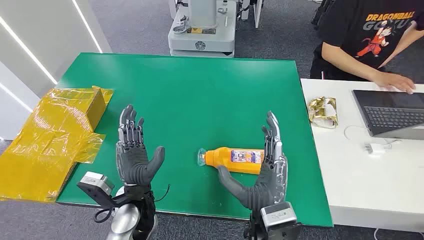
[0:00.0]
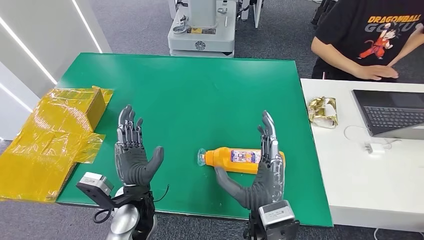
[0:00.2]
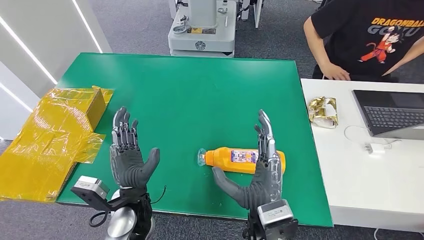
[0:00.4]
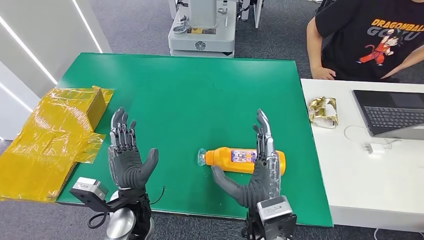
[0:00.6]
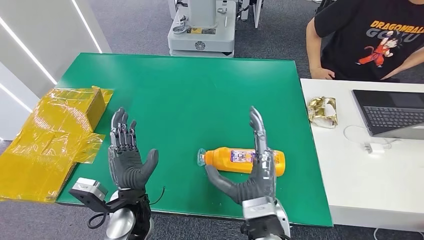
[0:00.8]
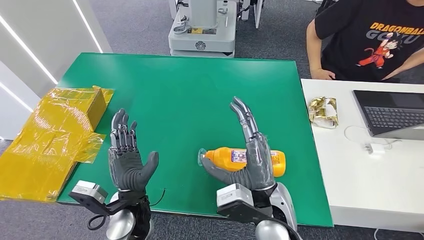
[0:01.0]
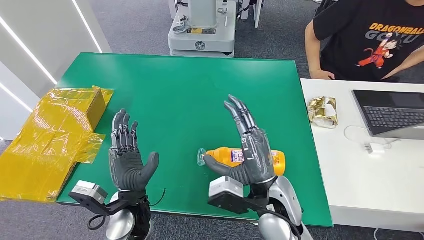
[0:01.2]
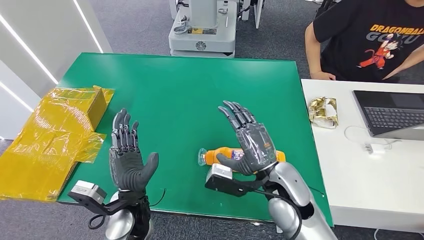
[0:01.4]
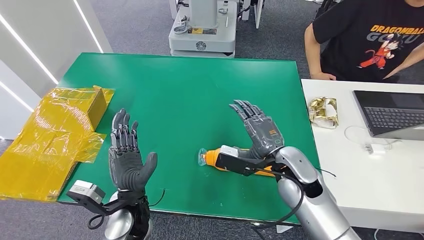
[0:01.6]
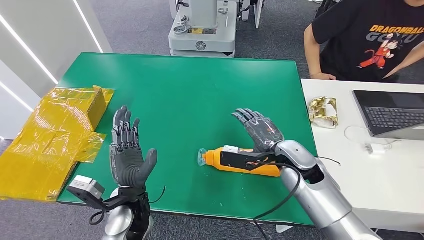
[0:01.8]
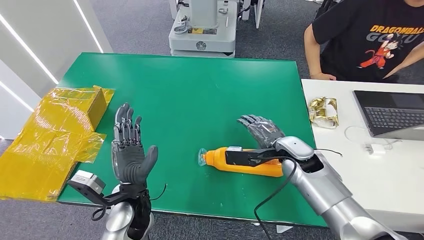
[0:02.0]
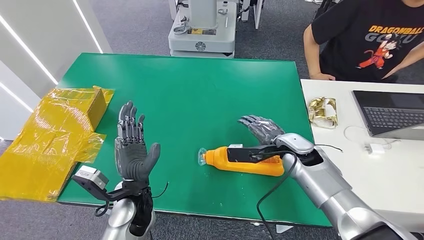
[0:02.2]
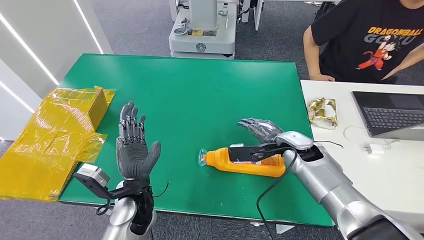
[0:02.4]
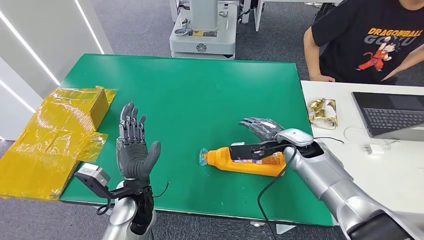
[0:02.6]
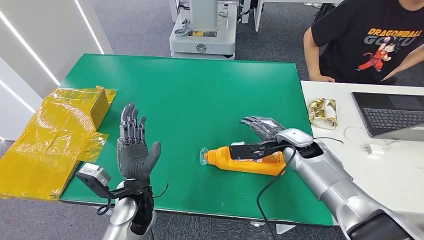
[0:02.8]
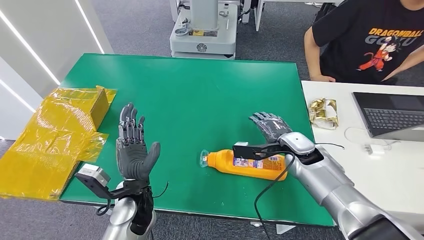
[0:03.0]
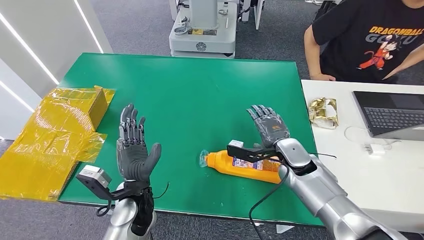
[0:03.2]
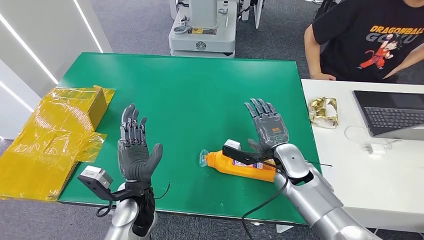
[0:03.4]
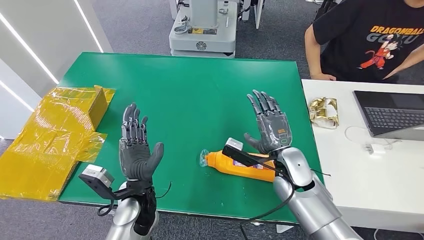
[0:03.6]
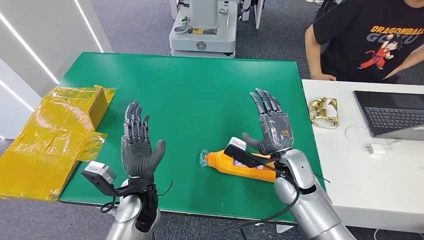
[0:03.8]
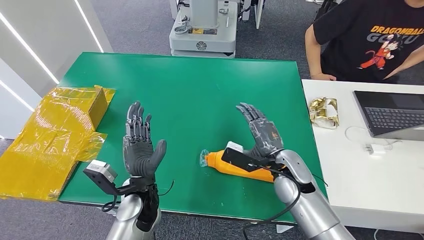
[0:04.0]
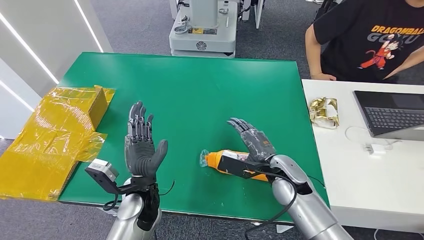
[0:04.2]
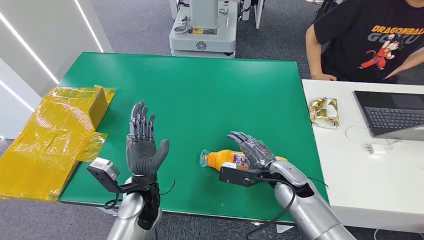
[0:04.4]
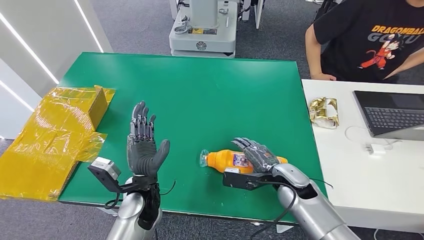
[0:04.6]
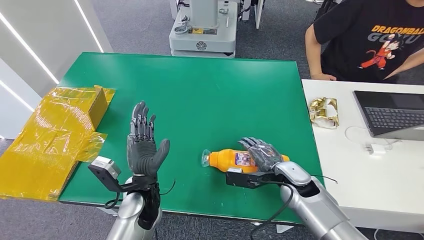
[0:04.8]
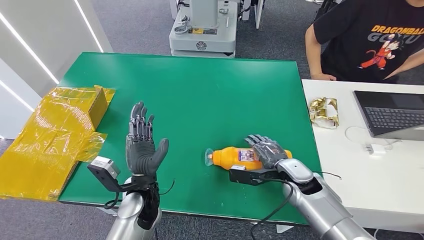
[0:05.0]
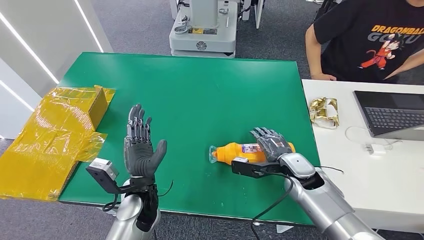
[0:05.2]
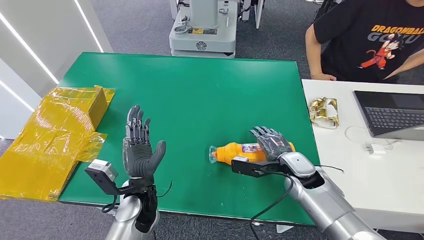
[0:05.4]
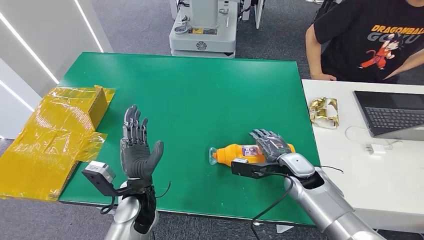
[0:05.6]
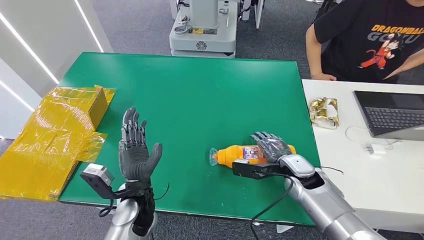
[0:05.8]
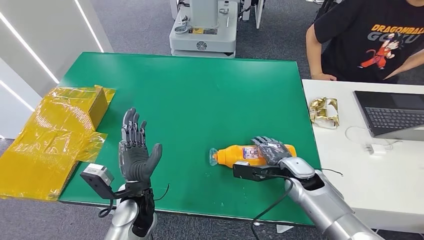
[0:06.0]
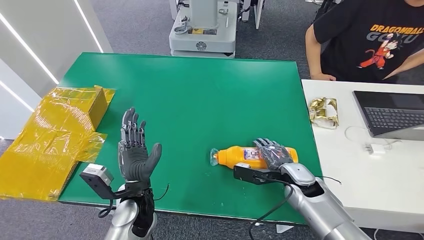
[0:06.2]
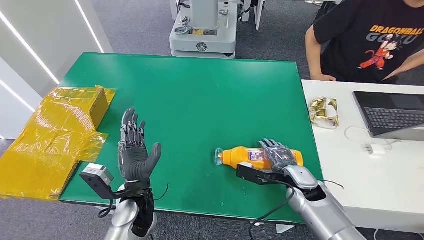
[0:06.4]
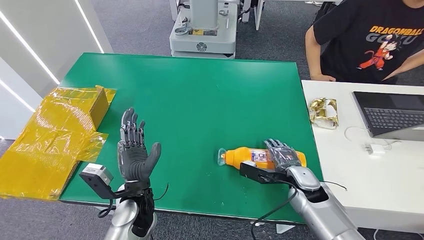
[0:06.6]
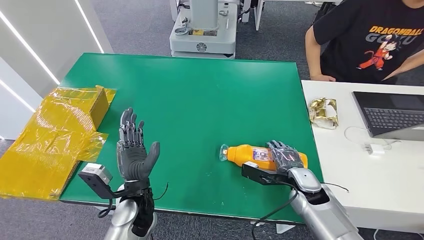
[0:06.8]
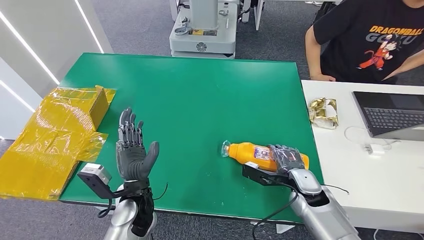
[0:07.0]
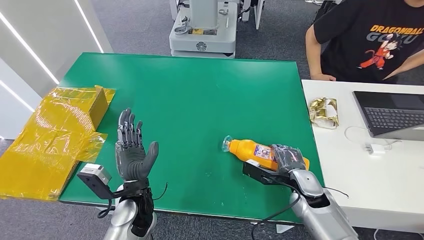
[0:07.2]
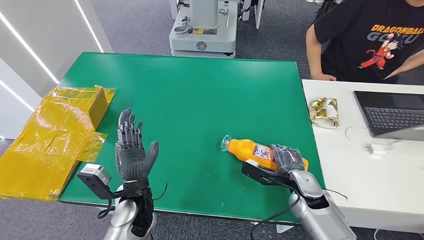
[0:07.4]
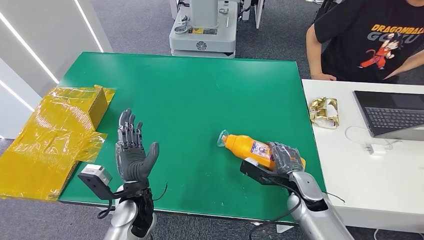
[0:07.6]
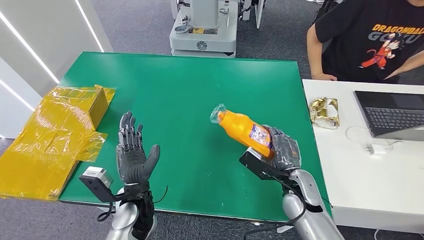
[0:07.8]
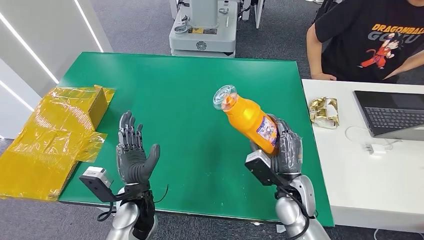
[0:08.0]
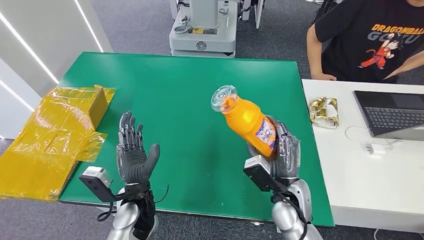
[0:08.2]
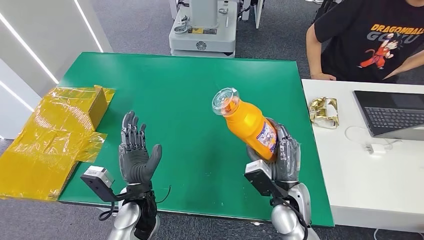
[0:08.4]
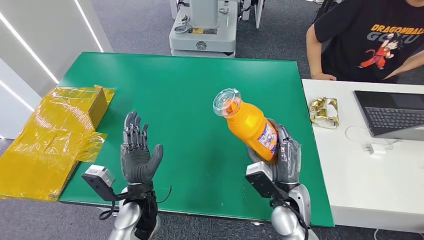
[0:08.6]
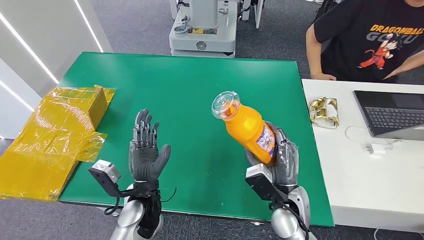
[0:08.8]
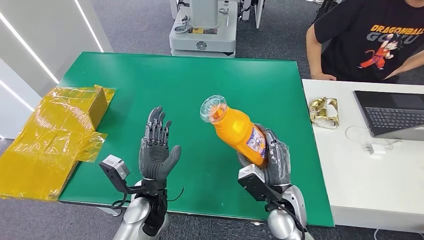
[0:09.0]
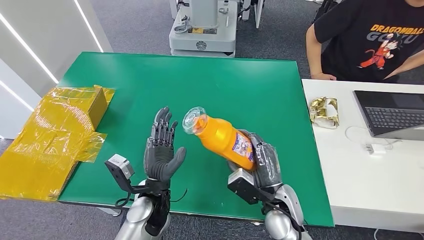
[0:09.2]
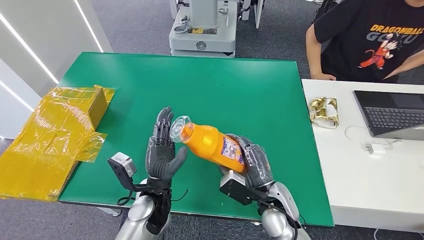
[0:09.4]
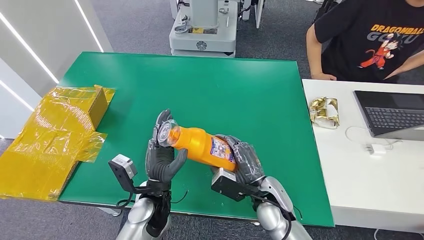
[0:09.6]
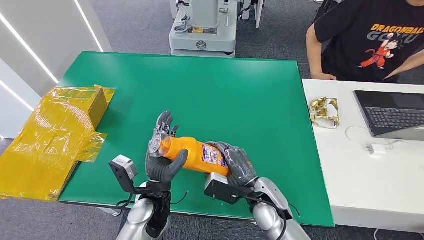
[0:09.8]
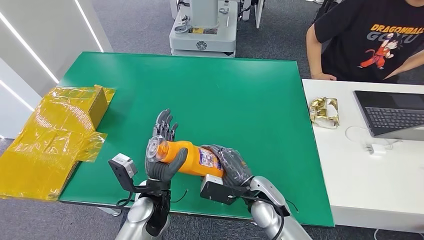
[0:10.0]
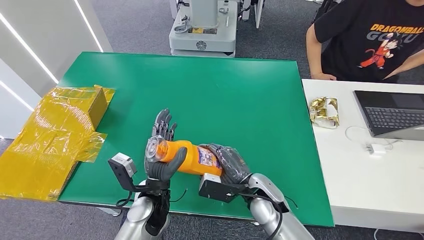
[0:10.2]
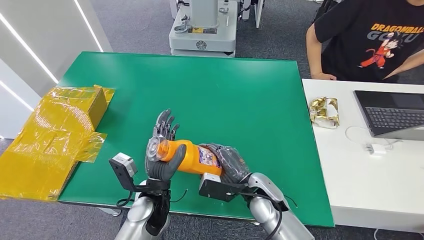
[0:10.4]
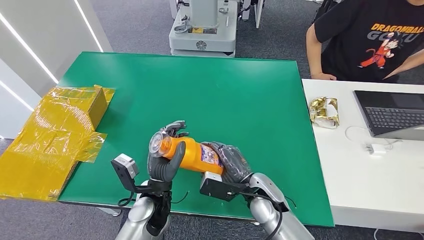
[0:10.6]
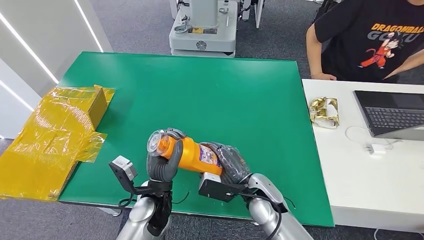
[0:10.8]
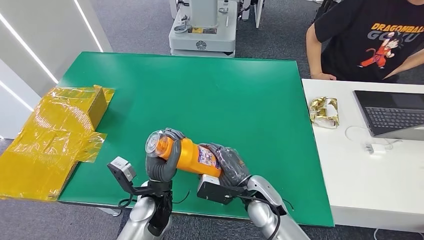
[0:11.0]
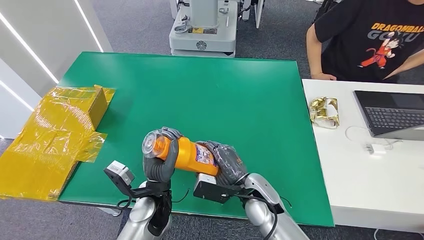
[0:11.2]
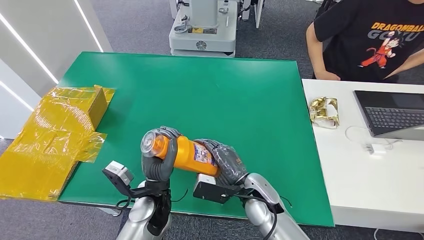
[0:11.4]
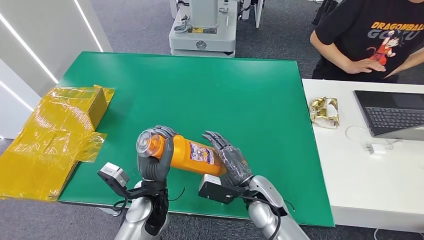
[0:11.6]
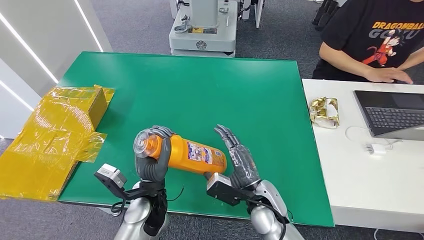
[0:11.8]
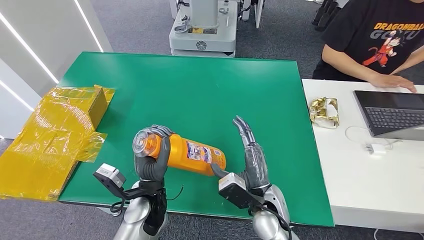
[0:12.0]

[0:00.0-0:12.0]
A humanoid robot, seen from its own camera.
Step, 0:00.0 to 0:07.8: Pick up the bottle from the table.
0:03.0 to 0:04.4: The right hand goes some 5 cm backward.
0:06.0 to 0:07.6: The right hand shifts by about 5 cm.
0:07.6 to 0:09.0: The right hand is displaced to the left by about 5 cm.
0:09.0 to 0:10.4: The right hand moves some 5 cm.

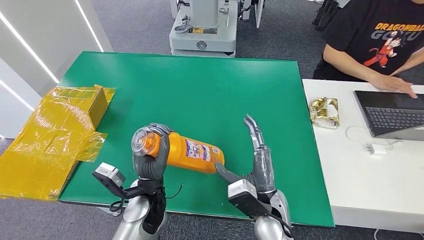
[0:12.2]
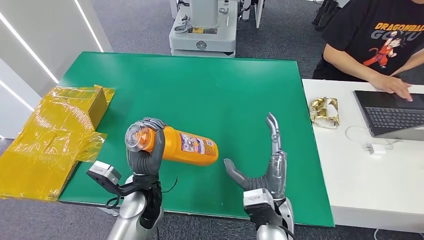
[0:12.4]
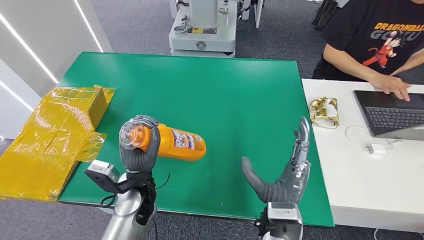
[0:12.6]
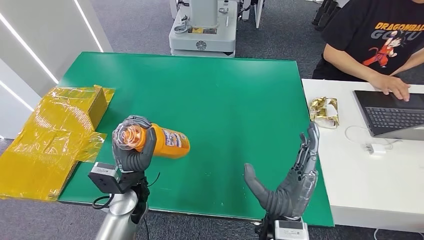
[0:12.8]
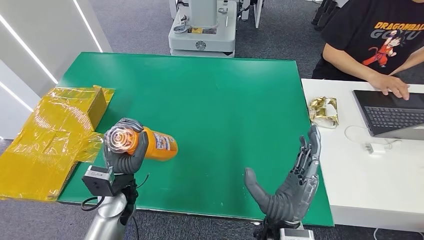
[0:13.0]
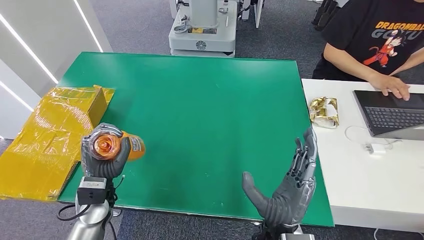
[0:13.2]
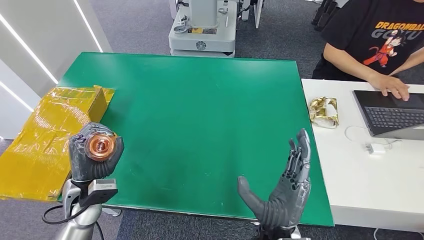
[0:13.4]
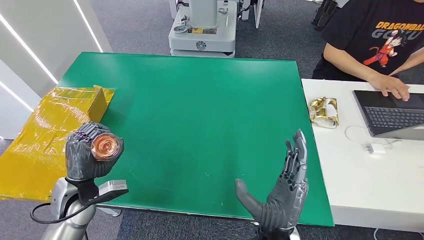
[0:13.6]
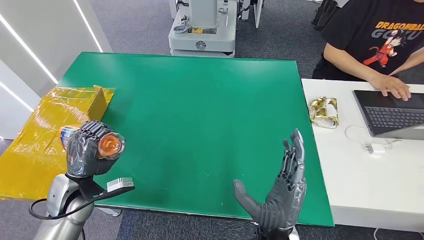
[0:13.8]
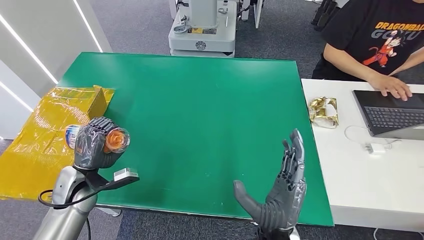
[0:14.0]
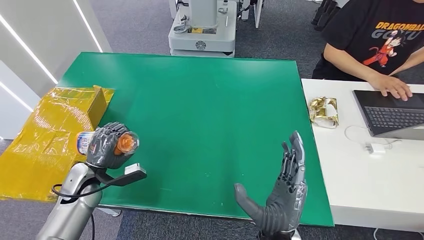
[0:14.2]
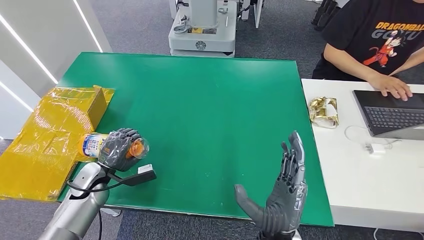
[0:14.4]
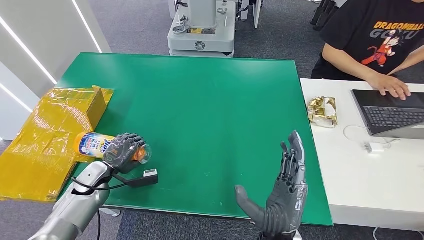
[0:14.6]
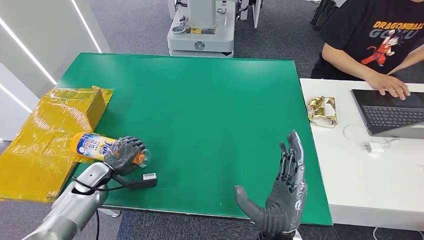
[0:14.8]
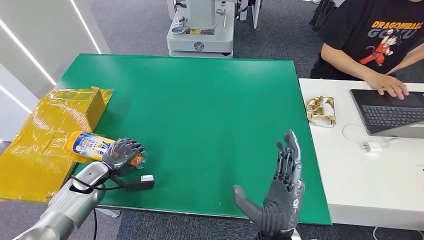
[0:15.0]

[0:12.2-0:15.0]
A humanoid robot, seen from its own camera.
Step, 0:12.2 to 0:15.0: Turn the bottle to the front side.
0:12.2 to 0:13.6: The right hand shifts roughly 5 cm backward, while the left hand travels to the left by roughly 20 cm.
0:13.6 to 0:15.0: The left hand goes some 15 cm downward, forward and to the left.

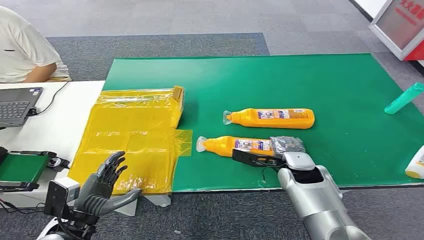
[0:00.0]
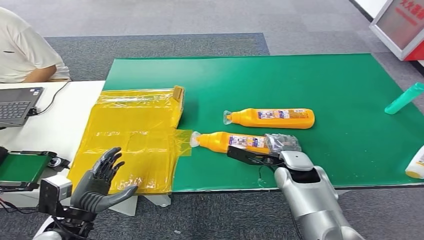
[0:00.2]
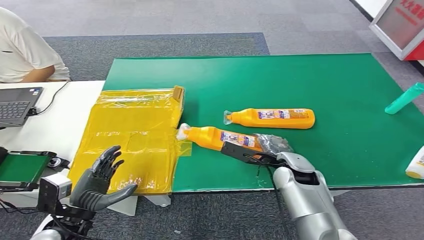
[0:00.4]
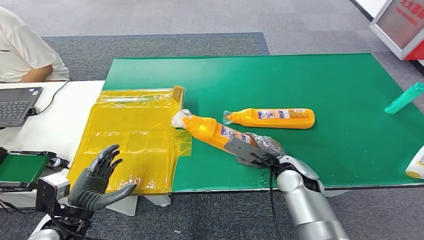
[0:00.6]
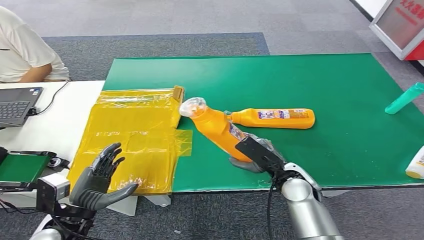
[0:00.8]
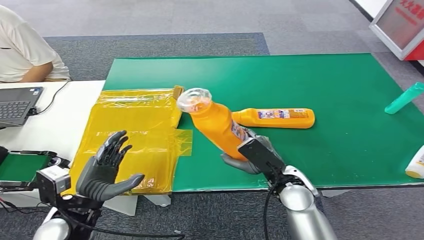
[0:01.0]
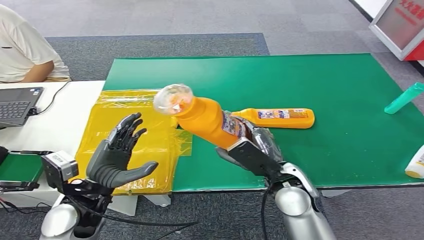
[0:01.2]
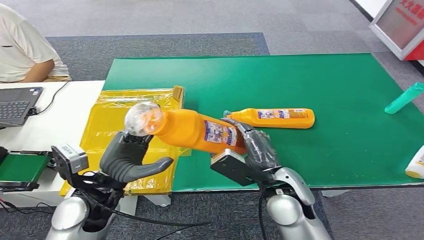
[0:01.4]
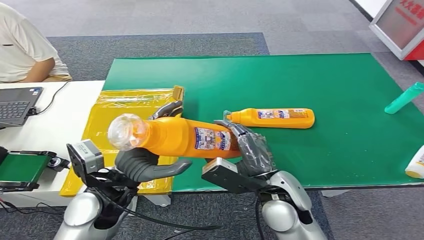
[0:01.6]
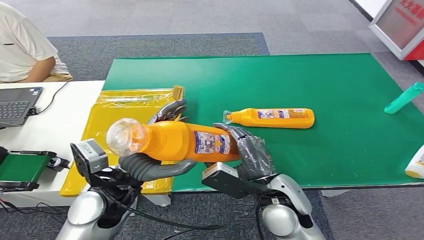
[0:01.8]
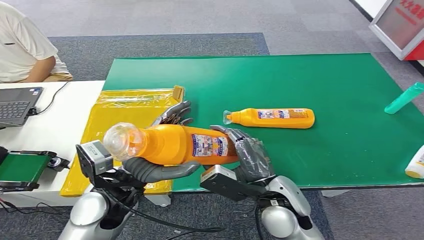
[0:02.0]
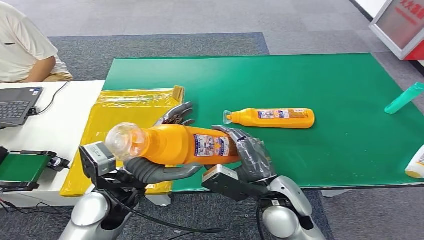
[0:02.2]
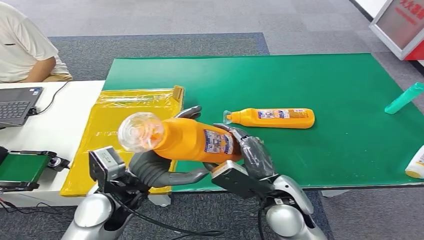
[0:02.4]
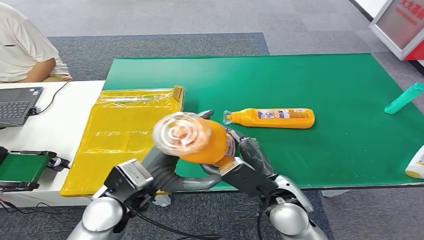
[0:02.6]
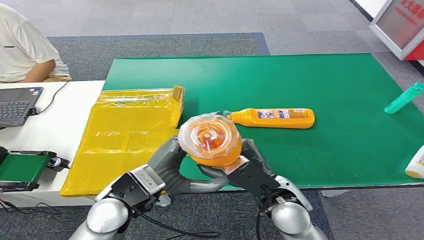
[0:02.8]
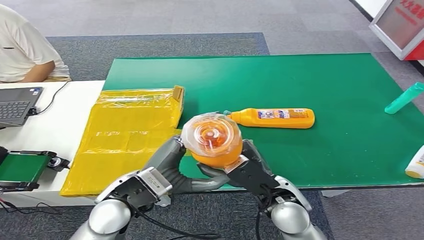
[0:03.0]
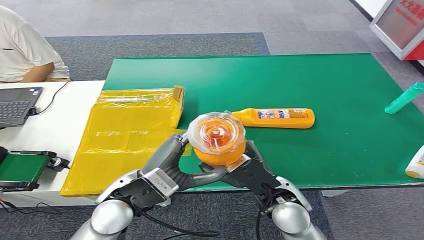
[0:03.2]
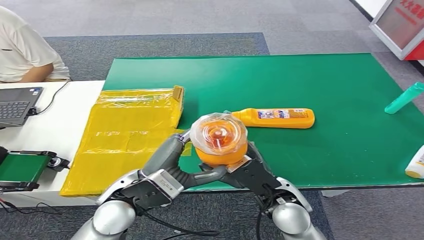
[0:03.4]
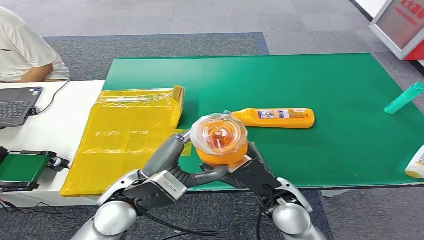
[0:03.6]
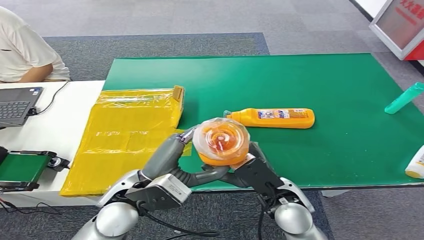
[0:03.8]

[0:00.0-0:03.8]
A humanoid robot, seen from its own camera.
Step, 0:00.0 to 0:01.0: Pick up the bottle from the table.
0:01.2 to 0:02.6: The left hand goes approximately 10 cm to the right.
0:02.6 to 0:03.8: The hands move only a little.
